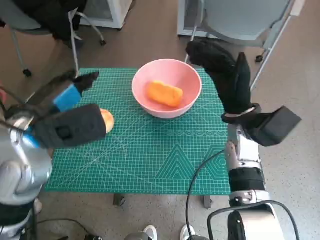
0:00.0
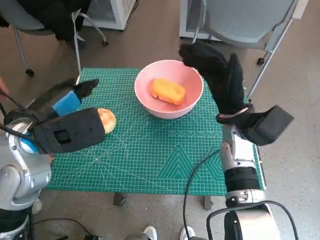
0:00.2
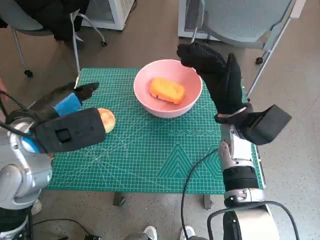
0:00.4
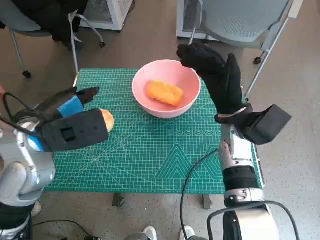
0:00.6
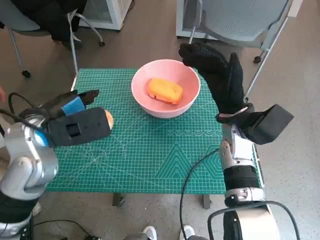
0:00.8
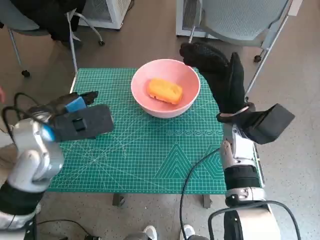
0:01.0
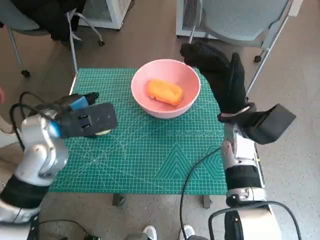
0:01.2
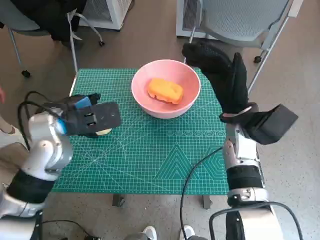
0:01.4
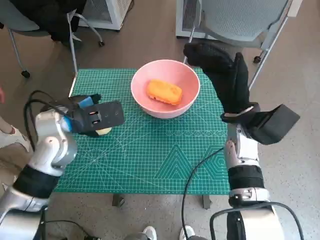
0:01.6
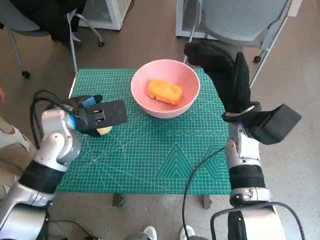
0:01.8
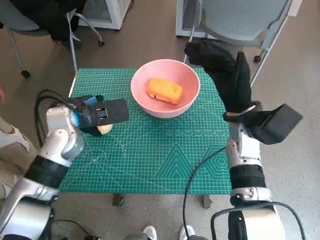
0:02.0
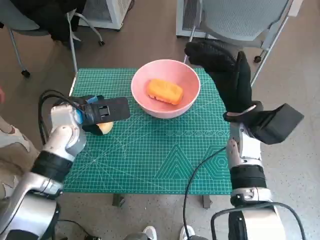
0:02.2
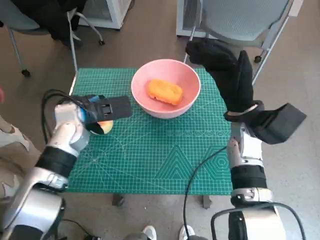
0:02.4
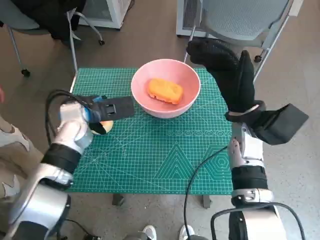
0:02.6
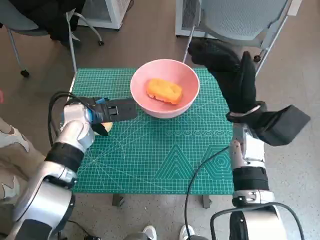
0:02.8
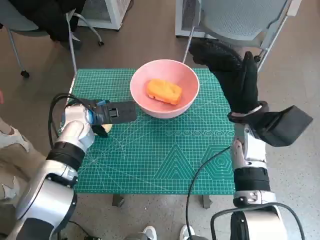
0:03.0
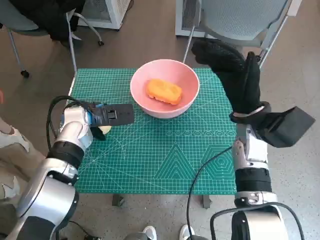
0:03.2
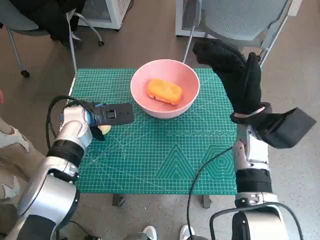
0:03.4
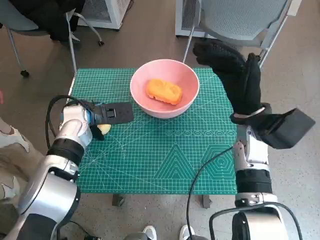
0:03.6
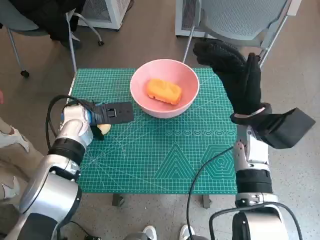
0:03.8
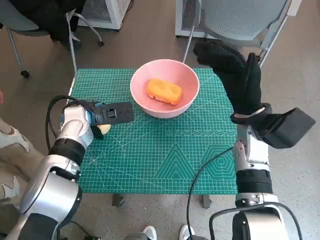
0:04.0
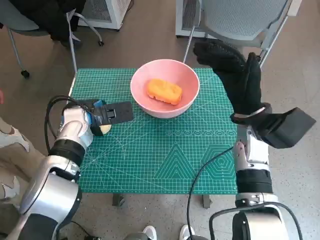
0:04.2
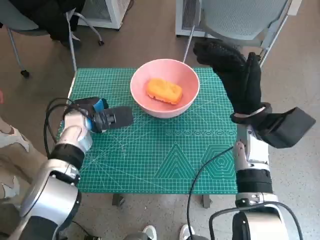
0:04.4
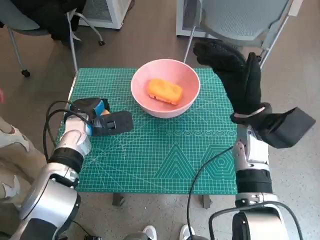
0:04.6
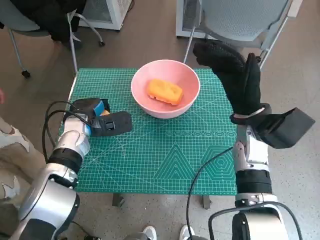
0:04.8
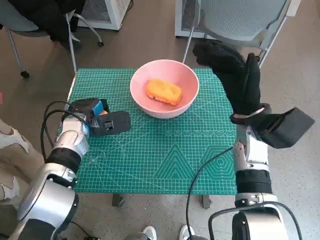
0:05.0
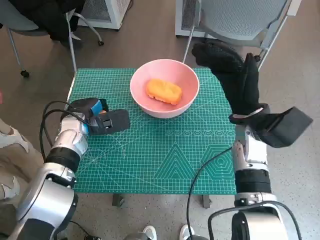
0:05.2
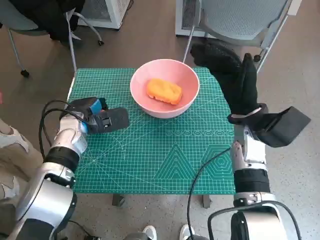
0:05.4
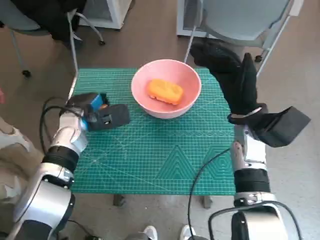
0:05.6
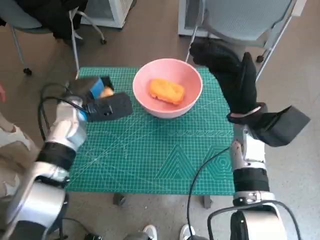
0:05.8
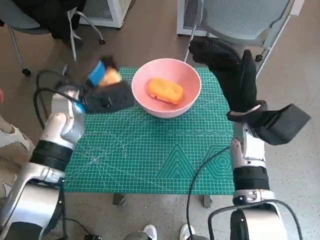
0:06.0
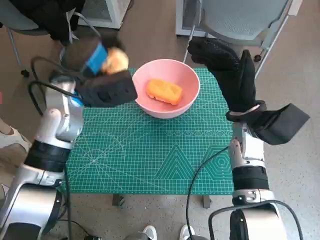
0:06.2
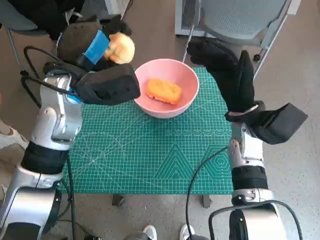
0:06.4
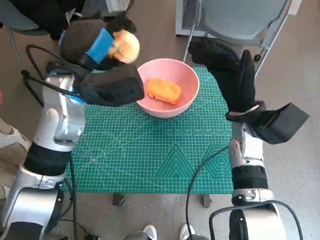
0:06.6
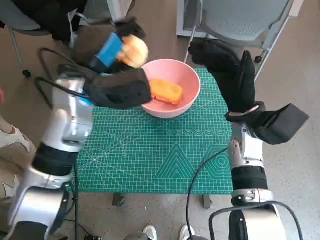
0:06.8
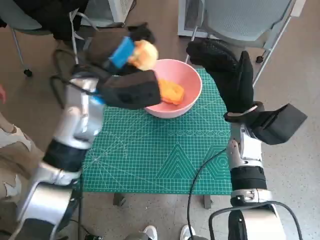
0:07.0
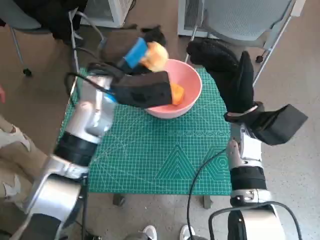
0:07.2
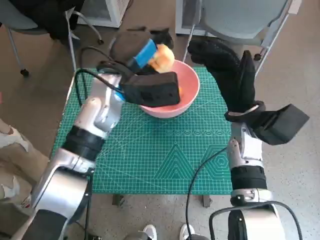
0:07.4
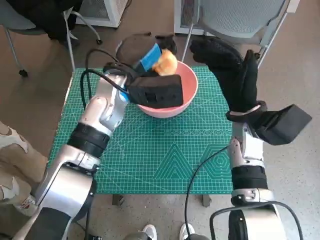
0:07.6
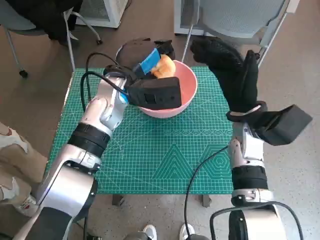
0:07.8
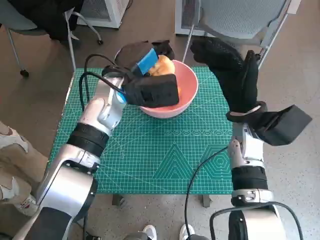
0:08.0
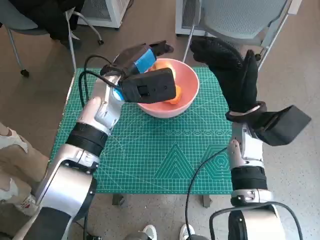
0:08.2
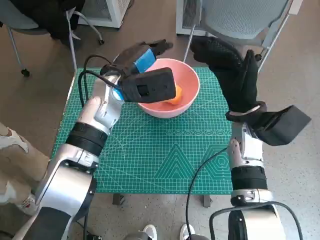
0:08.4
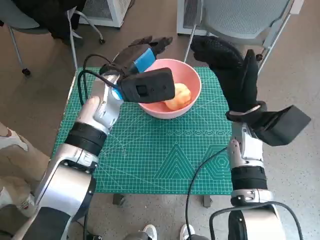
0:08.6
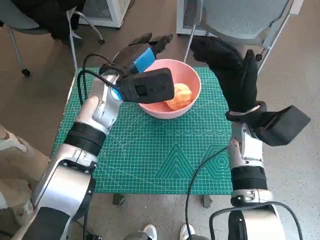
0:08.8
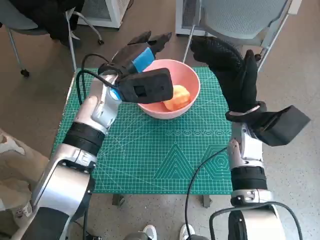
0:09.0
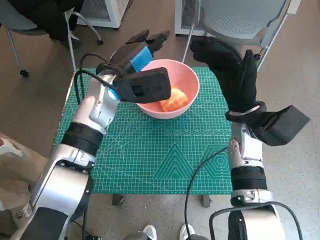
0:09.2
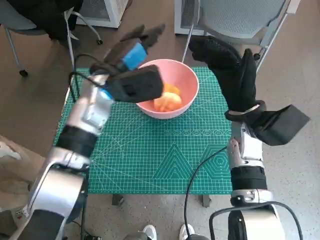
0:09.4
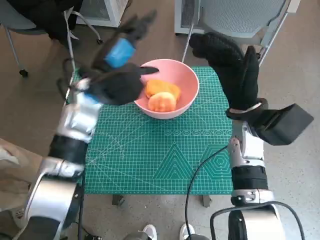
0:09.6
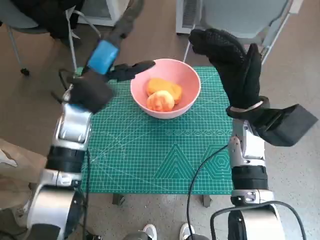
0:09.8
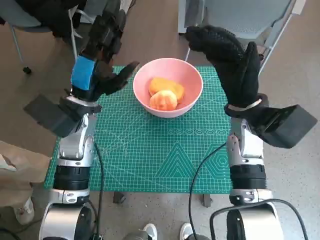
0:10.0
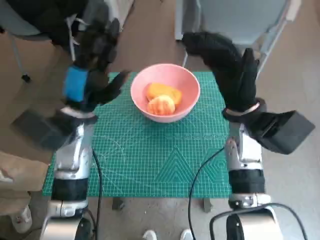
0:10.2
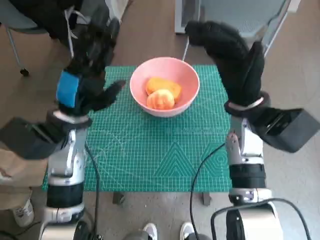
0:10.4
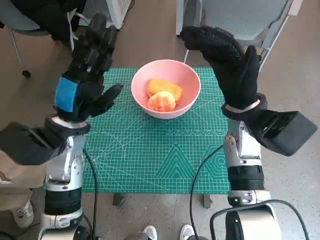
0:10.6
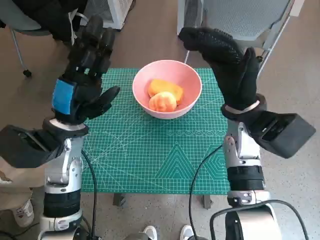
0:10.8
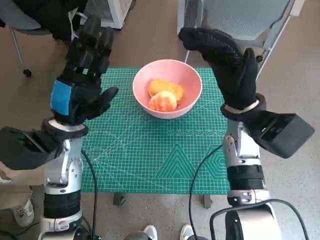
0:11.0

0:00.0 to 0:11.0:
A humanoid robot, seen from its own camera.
Step, 0:00.0 to 0:04.6: Grasp the round bread with left hand.
Step, 0:04.8 to 0:08.6: Place the round bread in pink bowl with left hand.
0:00.0 to 0:01.6: The left hand is displaced downward by some 5 cm.
0:01.6 to 0:03.2: The left hand moves downward, some 5 cm.
0:04.8 to 0:06.2: The left hand moves upward, some 10 cm.
0:06.2 to 0:07.8: The left hand shifts some 10 cm to the right.
0:07.8 to 0:09.4: The hands make only small movements.
0:09.4 to 0:11.0: The left hand heads backward and to the left, covering approximately 10 cm.

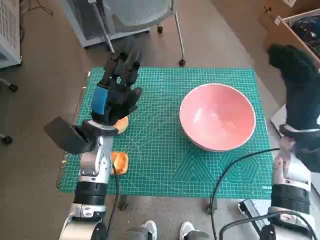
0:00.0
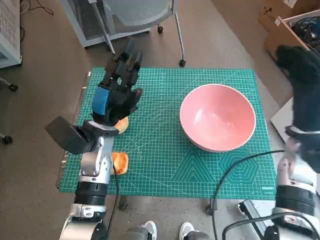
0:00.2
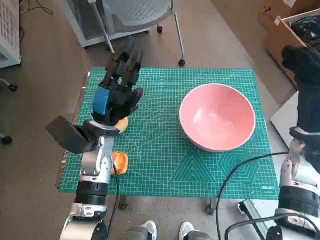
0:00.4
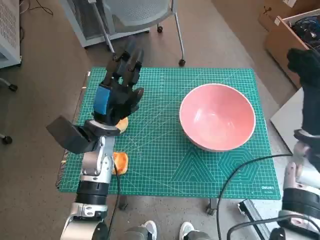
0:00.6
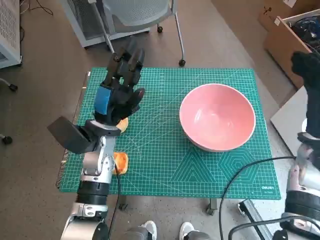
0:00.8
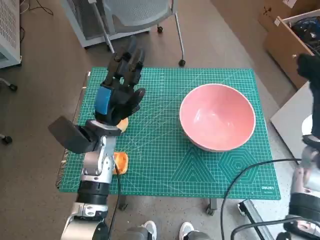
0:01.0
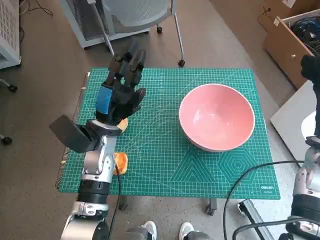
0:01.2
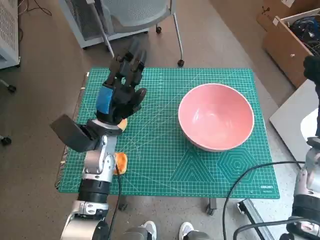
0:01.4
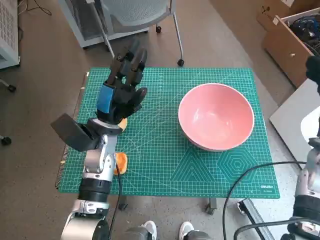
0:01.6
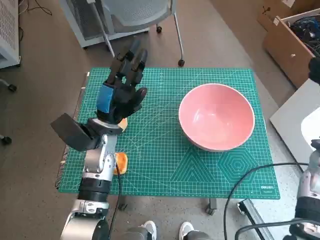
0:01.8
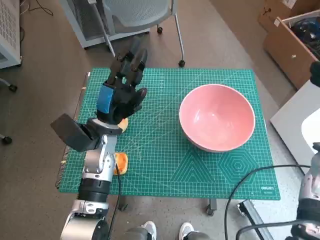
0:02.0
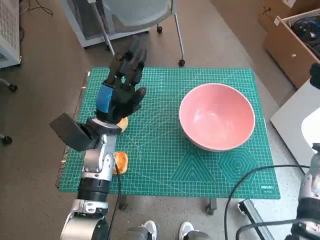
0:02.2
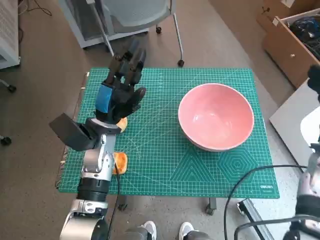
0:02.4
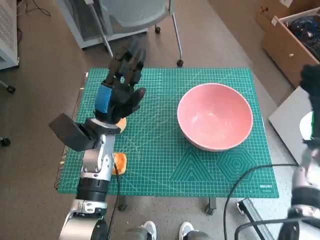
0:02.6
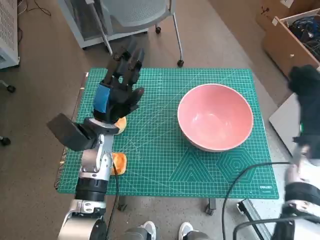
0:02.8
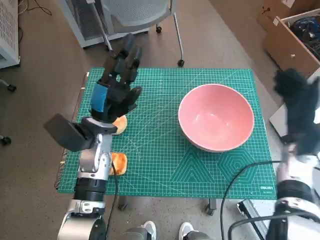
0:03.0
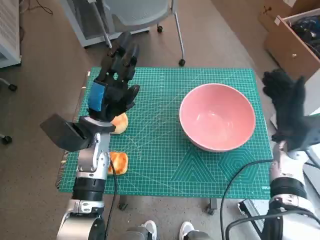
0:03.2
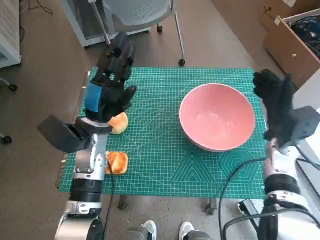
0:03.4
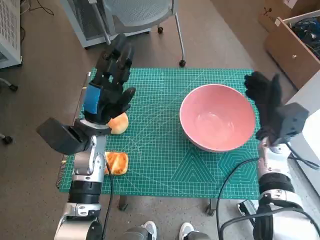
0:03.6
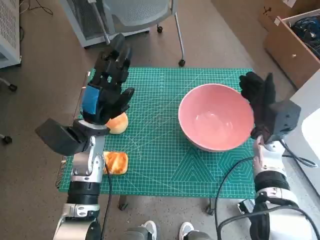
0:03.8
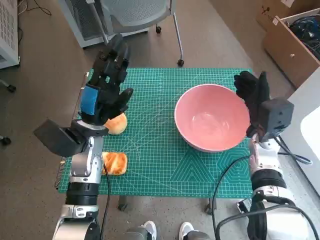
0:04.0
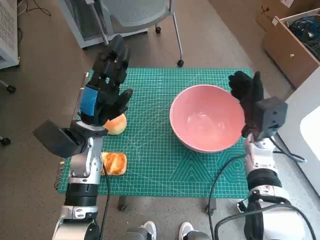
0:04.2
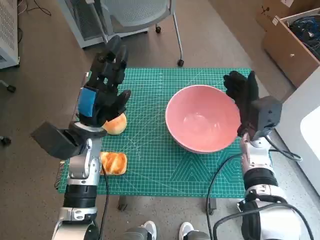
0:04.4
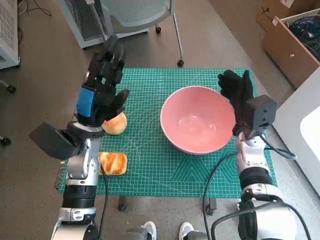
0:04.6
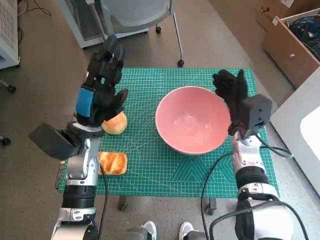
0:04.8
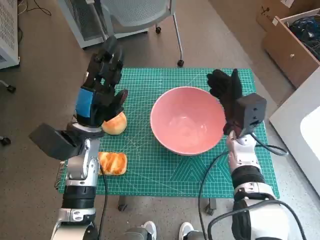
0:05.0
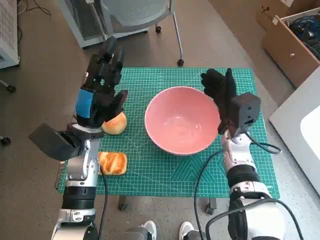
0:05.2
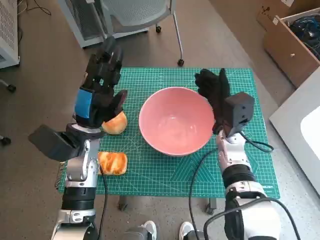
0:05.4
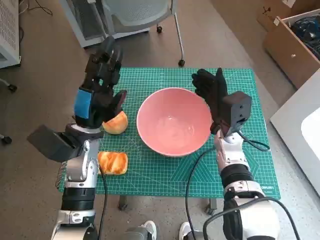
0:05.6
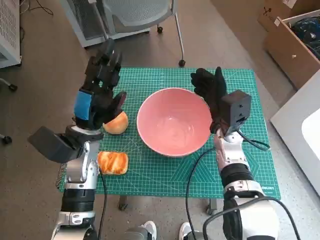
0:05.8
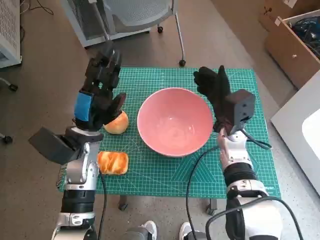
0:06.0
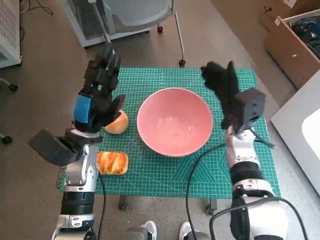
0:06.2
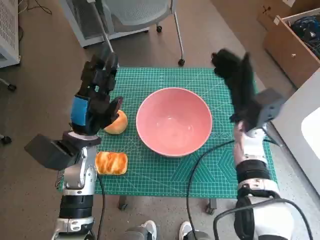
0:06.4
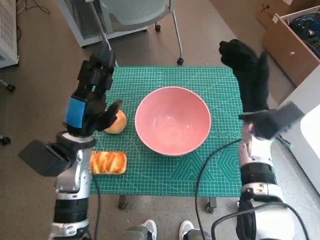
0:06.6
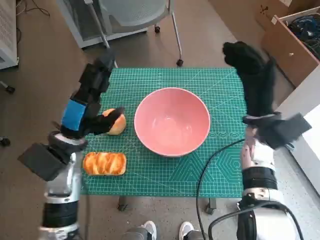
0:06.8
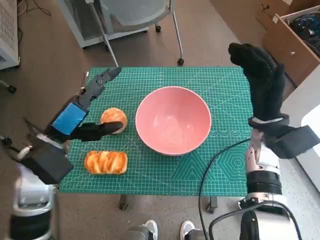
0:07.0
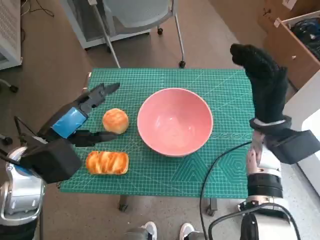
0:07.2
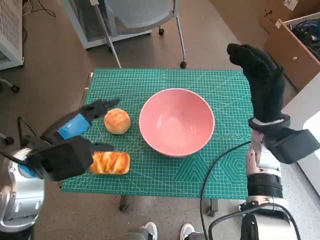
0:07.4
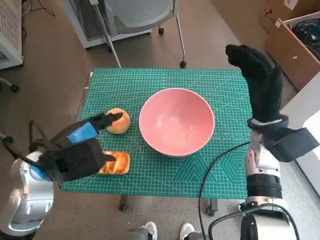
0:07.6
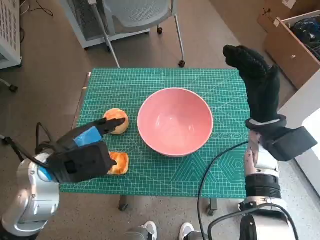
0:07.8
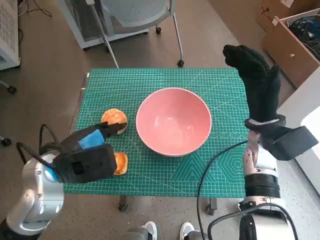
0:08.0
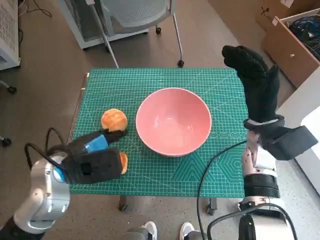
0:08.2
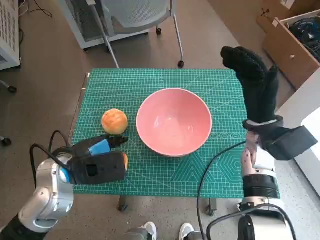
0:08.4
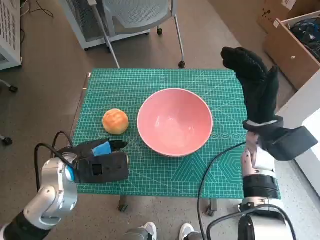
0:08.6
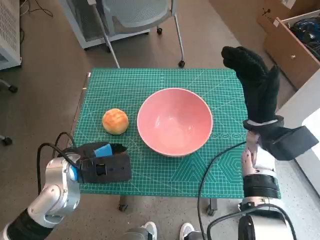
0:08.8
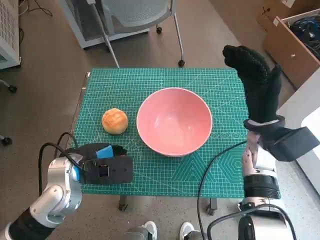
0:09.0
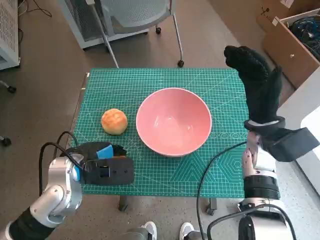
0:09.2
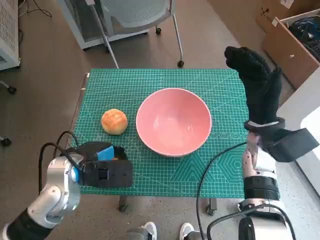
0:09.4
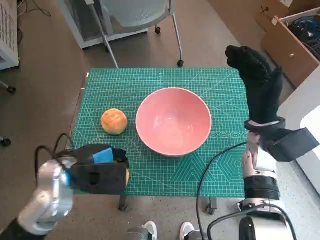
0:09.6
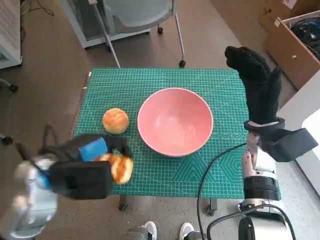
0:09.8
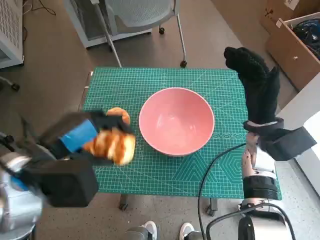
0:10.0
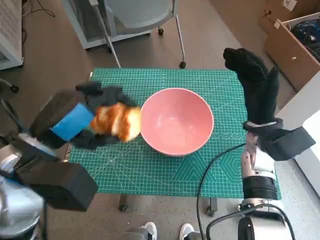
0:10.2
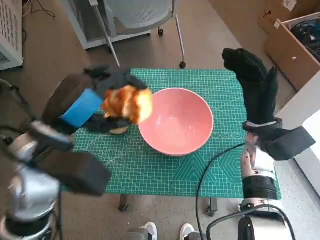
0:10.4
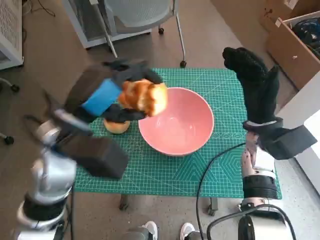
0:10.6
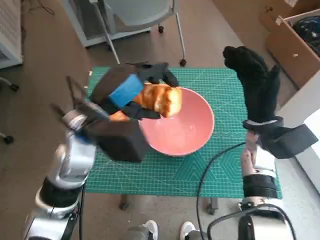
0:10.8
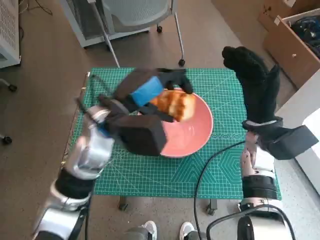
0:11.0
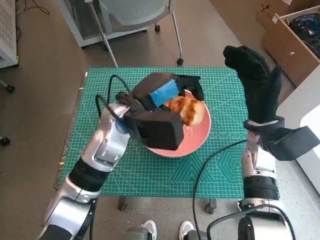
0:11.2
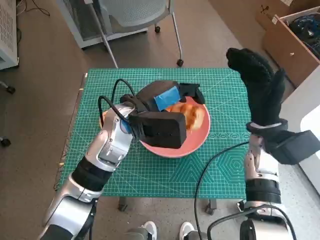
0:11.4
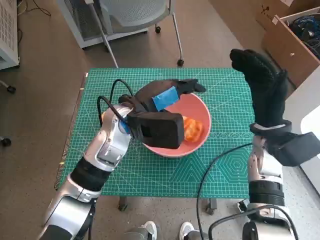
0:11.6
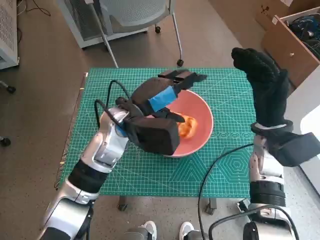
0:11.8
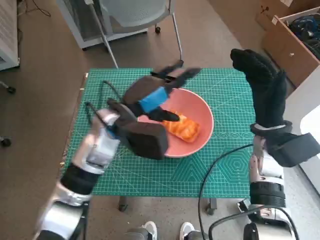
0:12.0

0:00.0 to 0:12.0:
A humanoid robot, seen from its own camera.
Step, 0:00.0 to 0:05.8: Move the pink bowl to the center of table with right hand.
Step, 0:06.0 to 0:09.2: Grasp the long bread with left hand.
Step, 0:09.4 to 0:11.8: Place the long bread in pink bowl with left hand.
0:01.6 to 0:03.0: The right hand ends up roughly 5 cm from where it was.
0:03.0 to 0:04.4: The right hand heads to the left, covering roughly 10 cm.
0:04.4 to 0:06.0: The right hand shifts roughly 5 cm to the left.
0:06.0 to 0:07.6: The left hand moves backward and upward, roughly 10 cm. Meanwhile the right hand is displaced to the right and upward by about 10 cm.
0:07.6 to 0:09.0: The left hand is displaced downward by some 5 cm.
0:09.0 to 0:10.4: The left hand goes approximately 10 cm upward.
0:10.4 to 0:12.0: The left hand heads forward, to the right and downward, covering approximately 15 cm.
